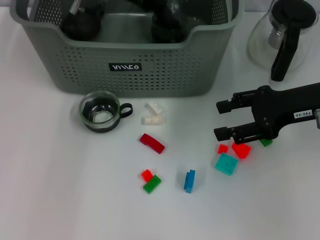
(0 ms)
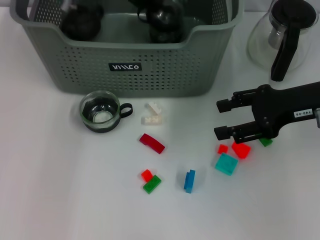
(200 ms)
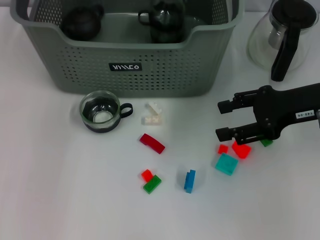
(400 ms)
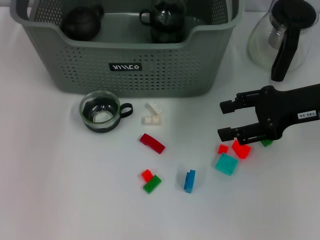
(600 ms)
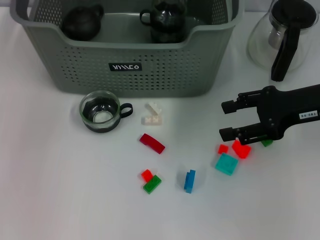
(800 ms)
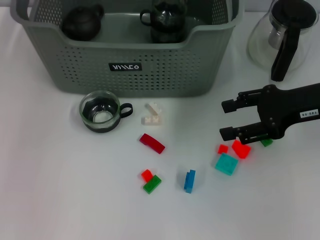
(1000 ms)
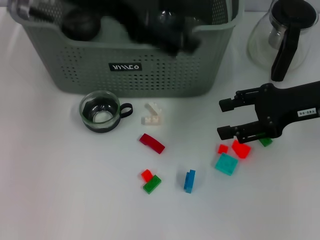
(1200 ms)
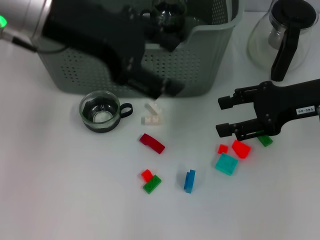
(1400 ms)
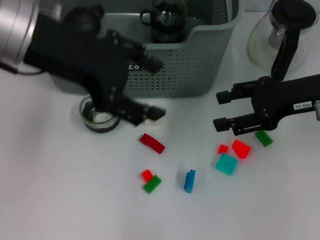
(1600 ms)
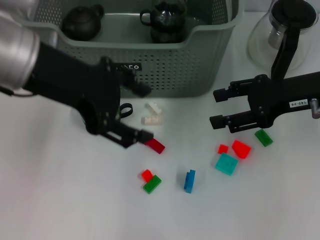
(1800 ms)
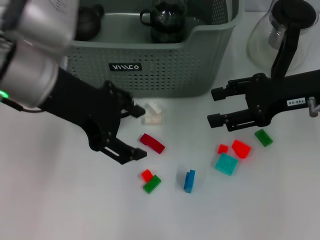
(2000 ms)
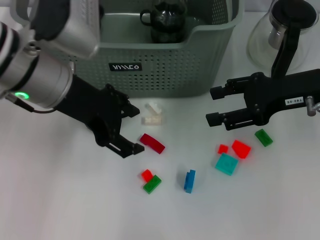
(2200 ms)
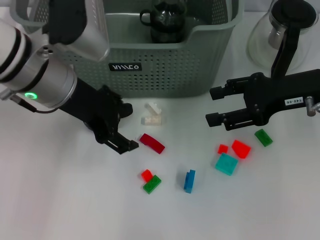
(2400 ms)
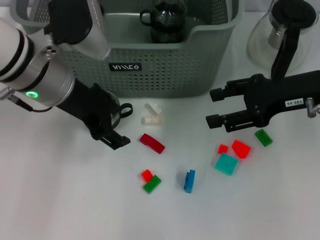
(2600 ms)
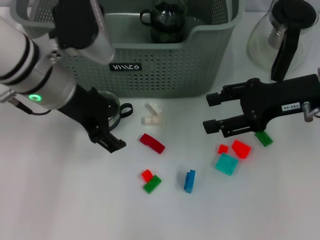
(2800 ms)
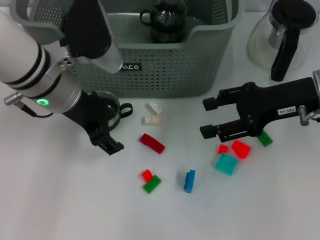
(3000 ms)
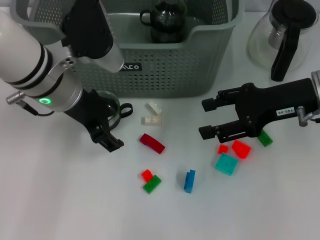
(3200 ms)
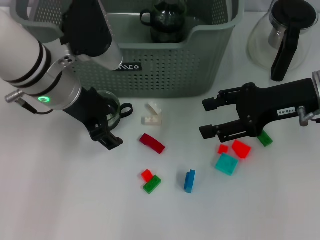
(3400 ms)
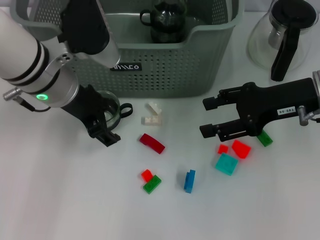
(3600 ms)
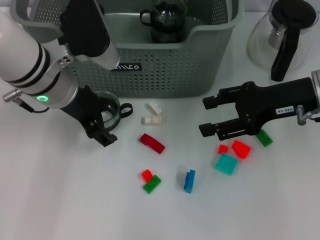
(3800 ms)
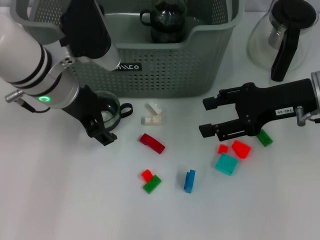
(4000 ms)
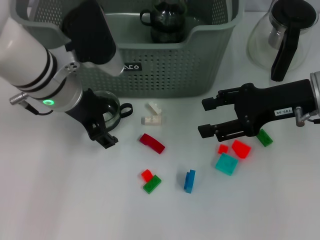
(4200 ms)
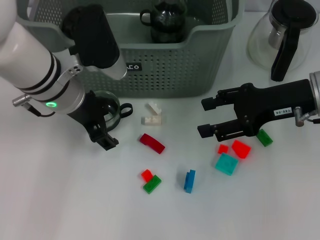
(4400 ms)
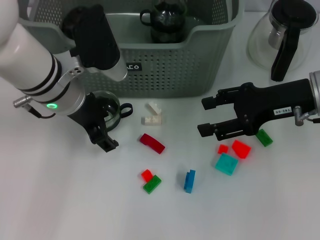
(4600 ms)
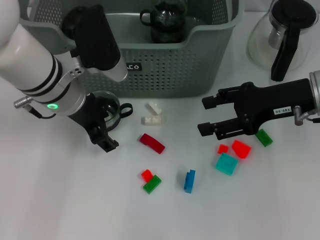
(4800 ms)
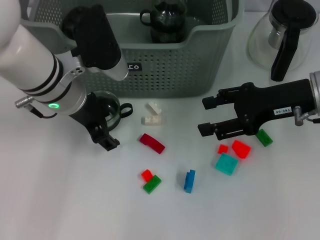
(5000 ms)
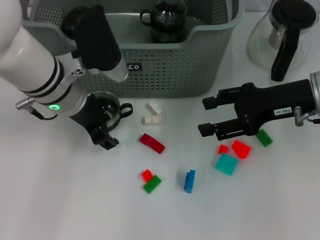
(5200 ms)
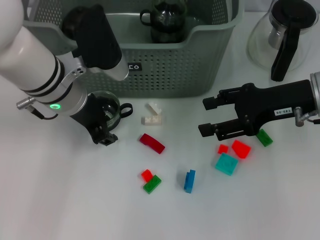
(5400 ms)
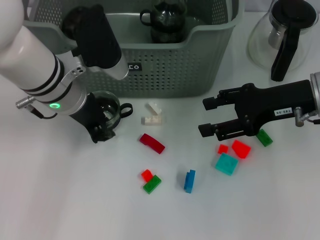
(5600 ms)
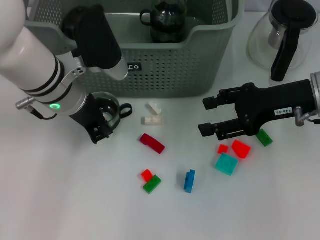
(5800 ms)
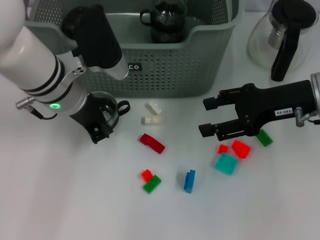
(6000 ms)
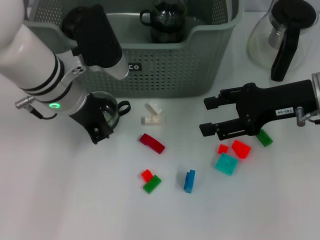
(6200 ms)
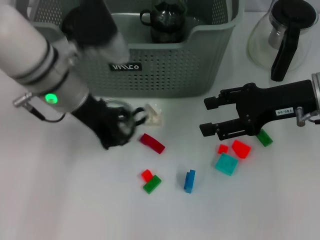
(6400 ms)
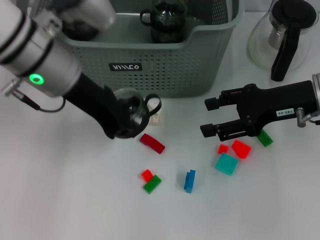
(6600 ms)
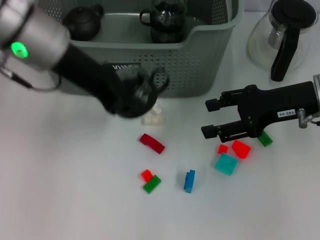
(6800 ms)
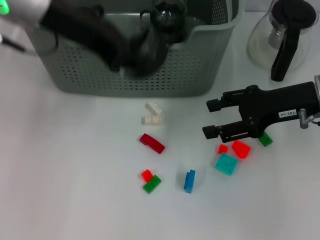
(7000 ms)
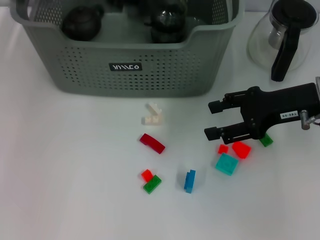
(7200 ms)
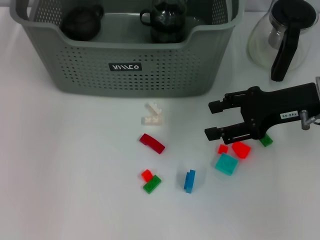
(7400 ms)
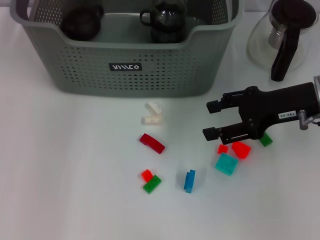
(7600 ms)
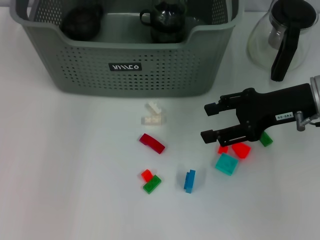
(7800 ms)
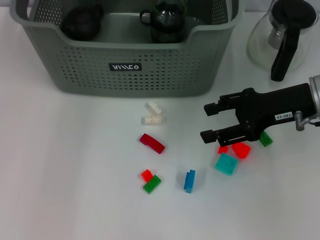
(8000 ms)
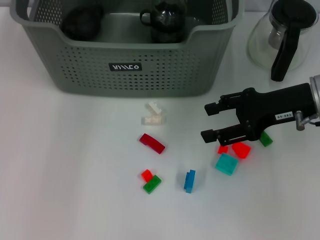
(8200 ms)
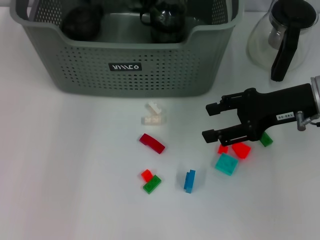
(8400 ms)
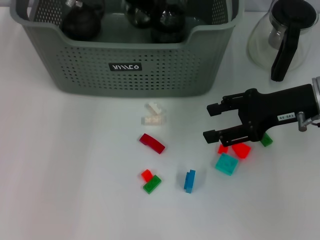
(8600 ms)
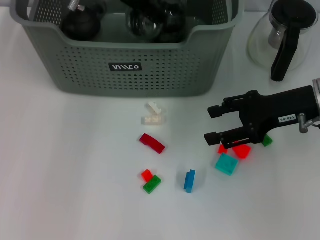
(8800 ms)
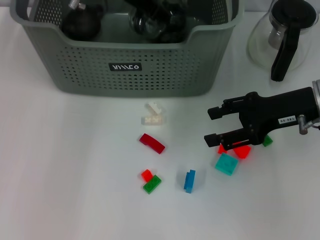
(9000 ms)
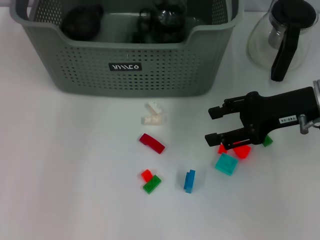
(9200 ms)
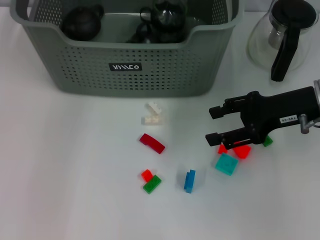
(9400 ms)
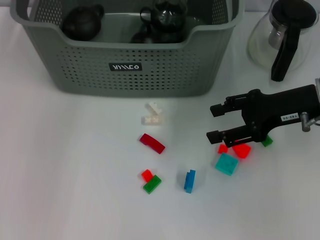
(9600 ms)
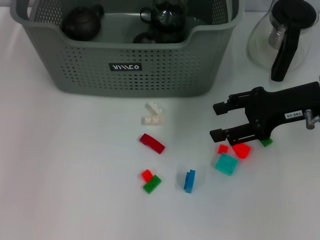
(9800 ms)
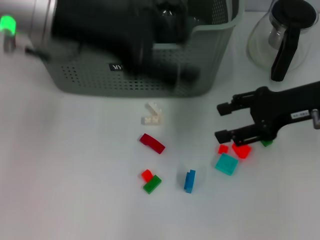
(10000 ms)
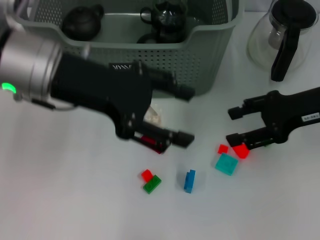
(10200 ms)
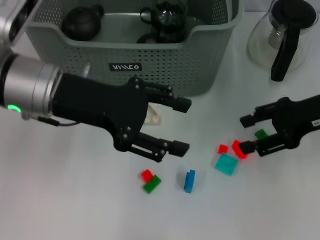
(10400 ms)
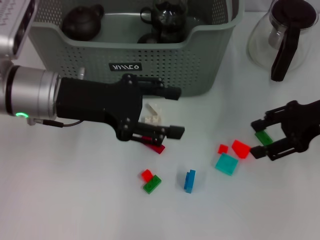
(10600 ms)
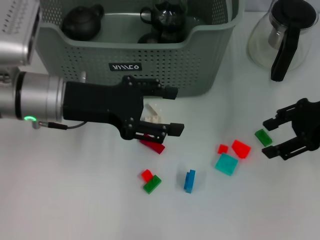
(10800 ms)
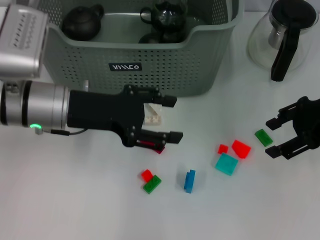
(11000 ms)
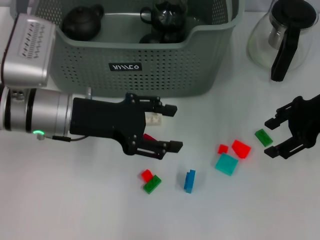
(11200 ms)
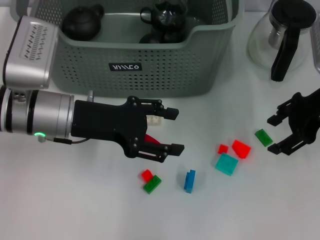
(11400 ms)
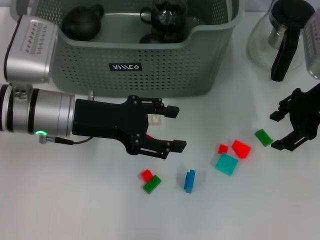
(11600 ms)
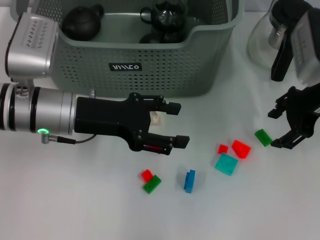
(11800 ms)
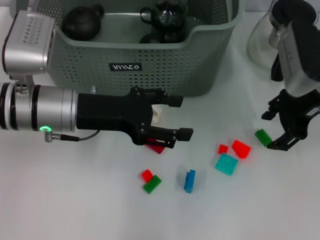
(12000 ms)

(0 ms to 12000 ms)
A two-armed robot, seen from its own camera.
Task of the whole recording: pick up the teacup on the table and place it into the storage bin, pick up the block on the table and place it into the storage bin.
Step, 1200 ms - 6200 ms: Grasp the cup with left gripper.
Step, 6400 ms - 9600 ms: Place the cup in the storage box with left gripper.
0 ms - 1600 ms: The left gripper moves backward and upward, some 20 cm.
1600 ms - 3000 ms: The left gripper moves downward, roughly 10 cm.
3000 ms - 4400 ms: The grippers move only a little.
4400 ms - 6000 ms: The left gripper closes up.
6000 ms - 7600 ms: The left gripper moves upward and forward, approximately 20 cm.
7600 ms - 9000 ms: The left gripper shifts some 5 cm downward, and opens up.
9000 ms - 10400 ms: The left gripper shifts approximately 15 cm backward, and opens.
10400 ms - 12000 ms: The left gripper goes some 5 cm downward. Meanwhile the right gripper changes place by approximately 5 cm.

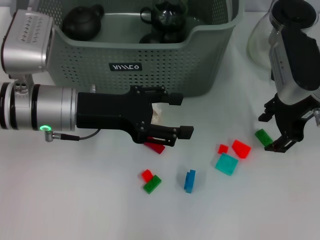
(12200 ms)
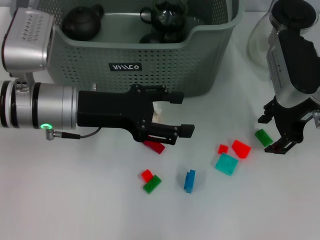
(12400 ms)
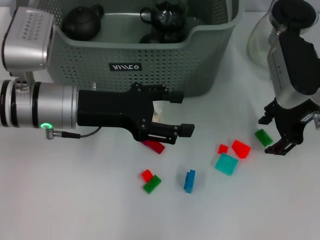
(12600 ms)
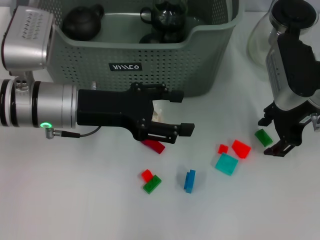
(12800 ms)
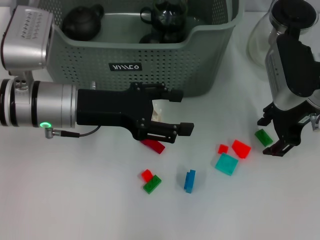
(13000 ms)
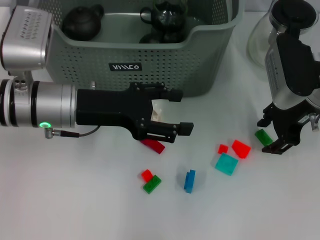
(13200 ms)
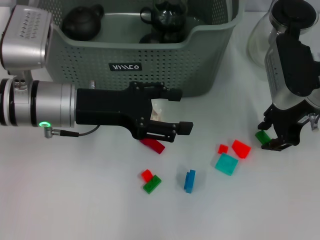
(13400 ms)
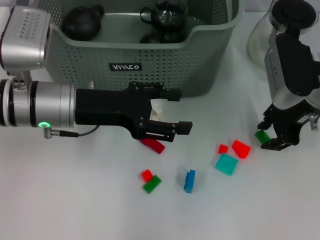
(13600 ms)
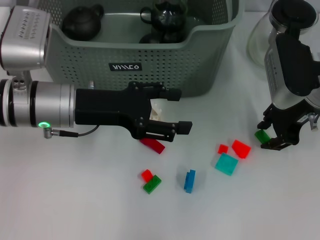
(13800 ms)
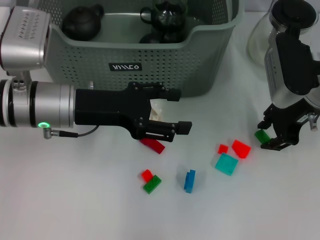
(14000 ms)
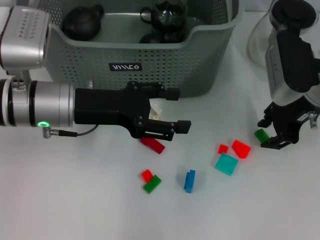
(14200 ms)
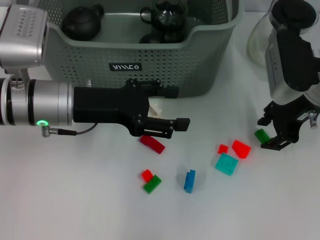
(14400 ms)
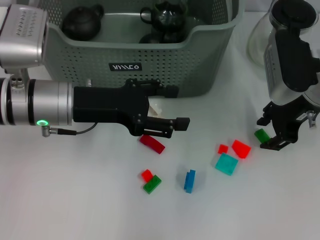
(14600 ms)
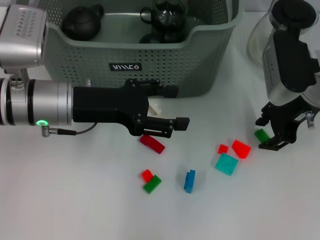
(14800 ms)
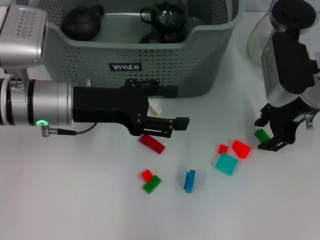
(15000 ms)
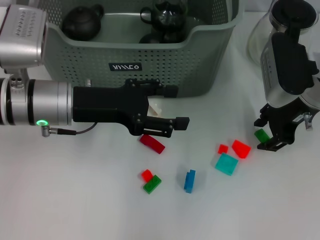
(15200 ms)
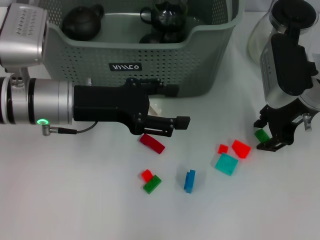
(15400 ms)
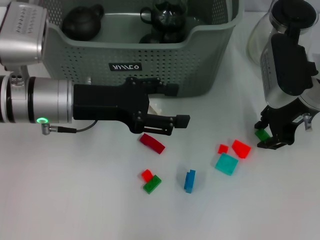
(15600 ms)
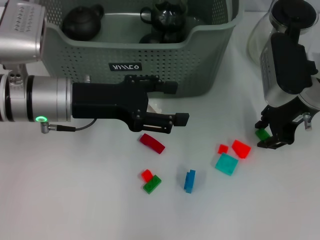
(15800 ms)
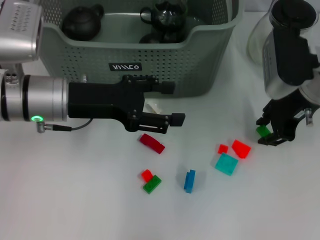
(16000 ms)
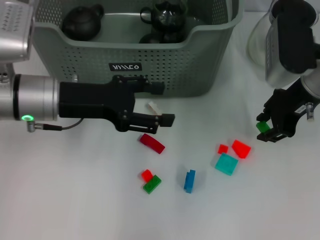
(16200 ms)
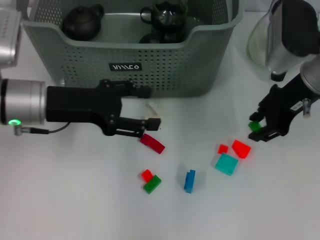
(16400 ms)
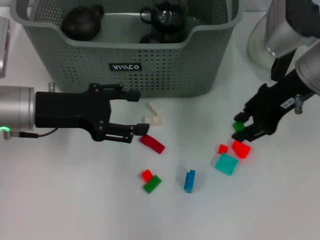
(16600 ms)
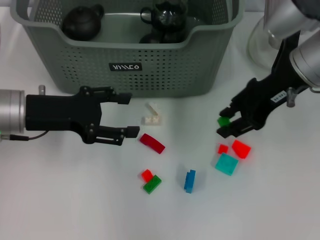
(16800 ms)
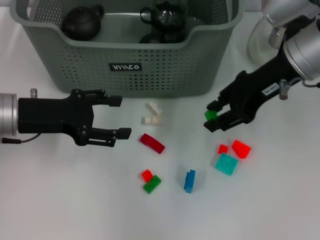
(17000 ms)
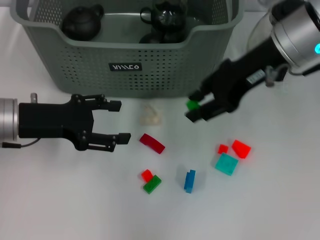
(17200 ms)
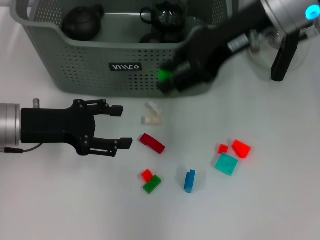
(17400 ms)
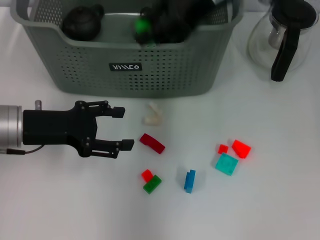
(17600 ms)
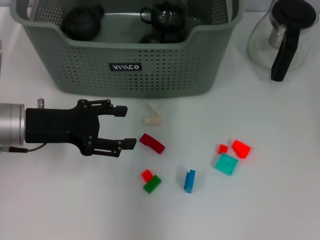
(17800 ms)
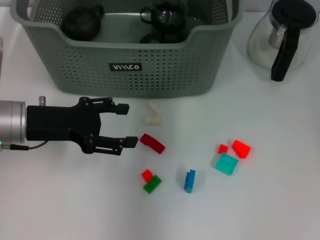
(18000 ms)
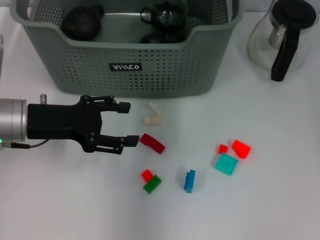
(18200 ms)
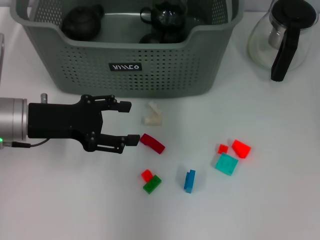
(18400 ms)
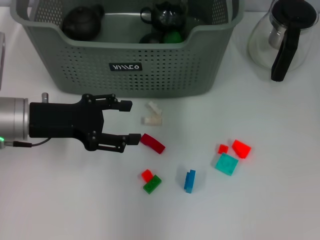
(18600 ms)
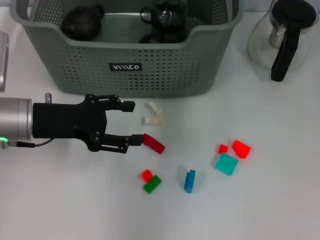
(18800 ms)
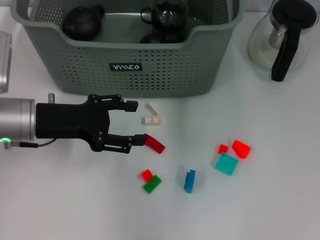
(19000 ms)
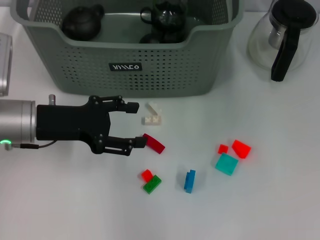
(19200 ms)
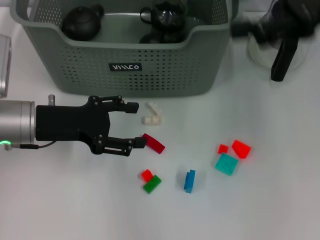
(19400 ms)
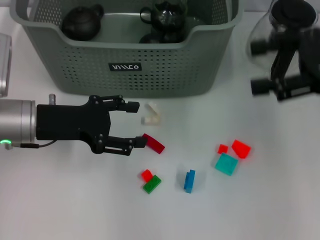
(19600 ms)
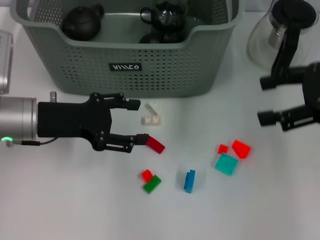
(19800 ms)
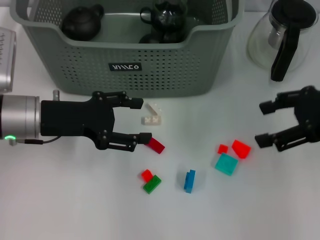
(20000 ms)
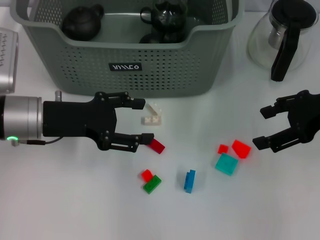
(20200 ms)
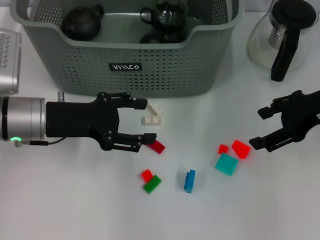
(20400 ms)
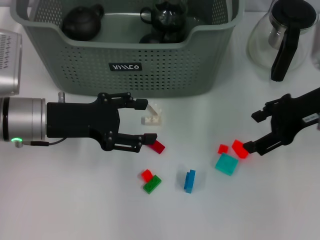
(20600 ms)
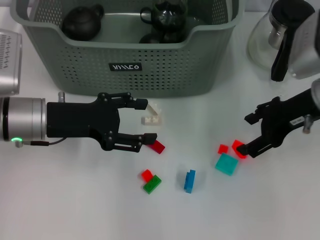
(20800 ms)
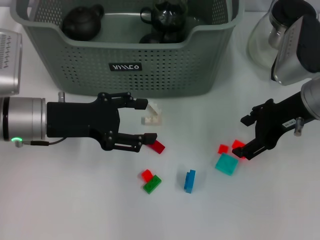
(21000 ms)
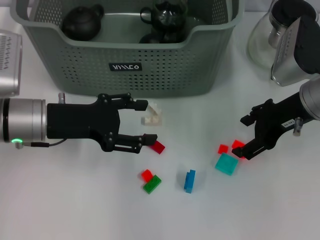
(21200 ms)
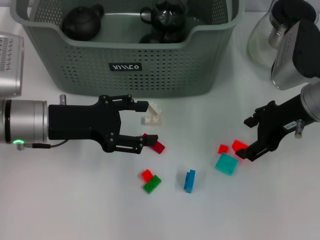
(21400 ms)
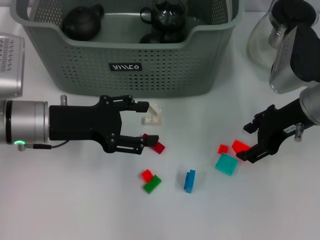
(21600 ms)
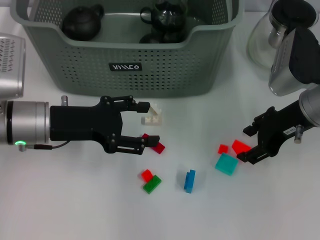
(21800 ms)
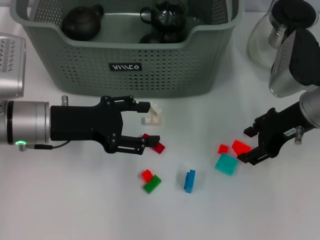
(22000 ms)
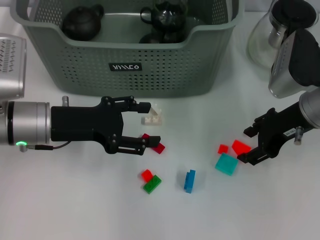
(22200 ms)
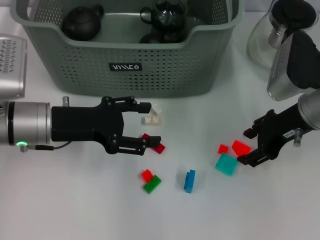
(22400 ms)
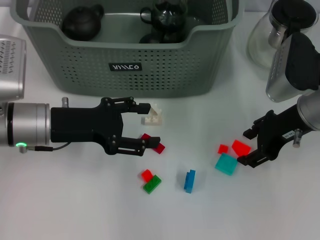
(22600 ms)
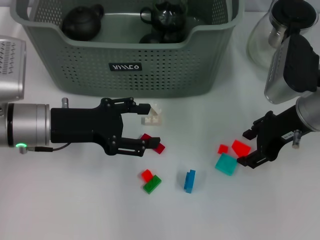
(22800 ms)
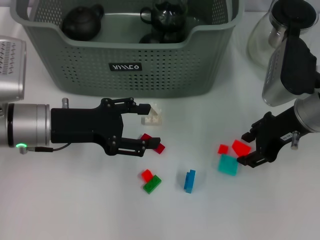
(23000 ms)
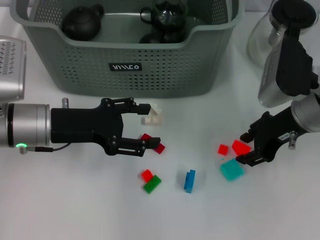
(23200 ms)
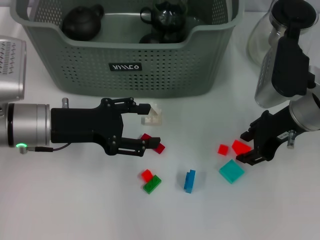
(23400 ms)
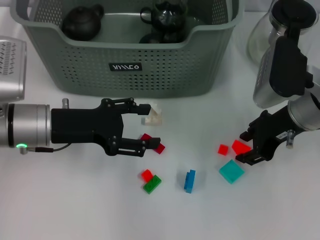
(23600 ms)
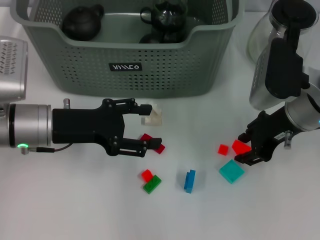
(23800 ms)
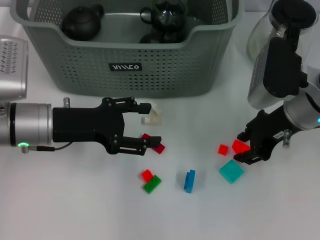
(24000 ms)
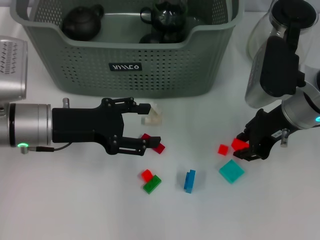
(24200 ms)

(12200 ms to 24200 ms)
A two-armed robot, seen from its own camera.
Task of the whole recording: pick up the teacup on the table and place it into the storage bin, pick up the block on the table and place it into the storage bin.
Step, 12200 ms - 15600 ms: Grasp the green block with right gripper.
Step, 15800 ms - 19200 ms: Place the green block in the storage box with right gripper.
12200 ms - 13800 ms: Both grippers stay put.
13800 ms - 15200 ms: Both grippers stay put.
15200 ms - 16600 ms: The right gripper goes some 5 cm upward.
16600 ms - 18200 ms: The right gripper is displaced upward, to the left and forward by some 15 cm.
18200 ms - 19800 ms: The right gripper is displaced to the right, backward and downward by about 25 cm, and opens up.
19800 ms - 21200 ms: The right gripper goes some 10 cm to the left and downward.
21200 ms - 24200 ms: There are only small adjustments of the grippers.
